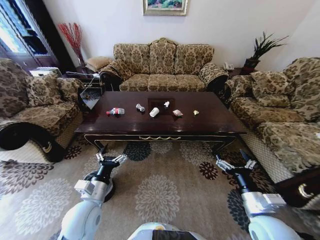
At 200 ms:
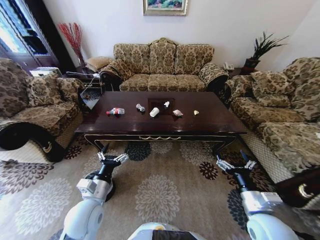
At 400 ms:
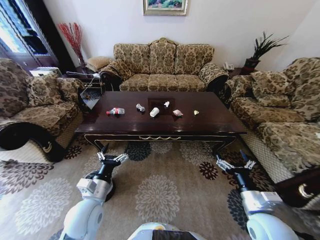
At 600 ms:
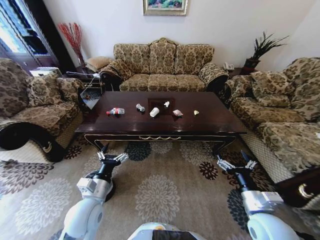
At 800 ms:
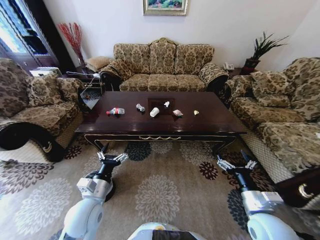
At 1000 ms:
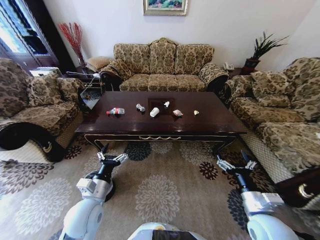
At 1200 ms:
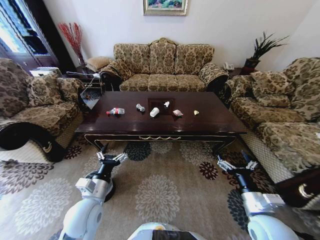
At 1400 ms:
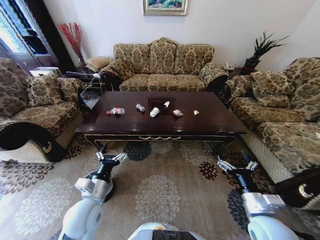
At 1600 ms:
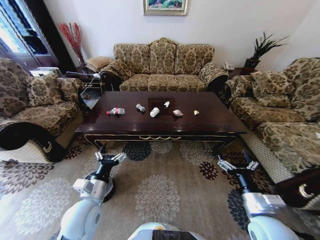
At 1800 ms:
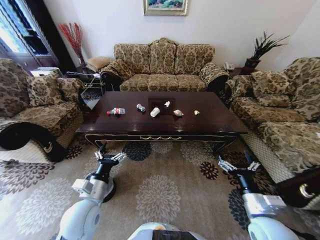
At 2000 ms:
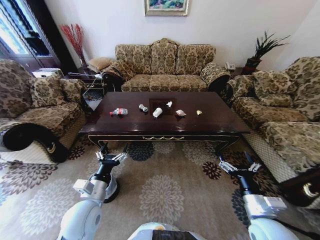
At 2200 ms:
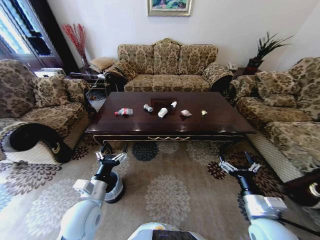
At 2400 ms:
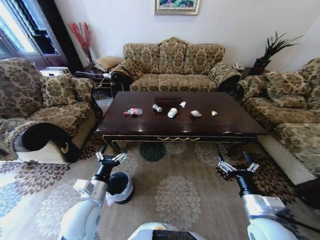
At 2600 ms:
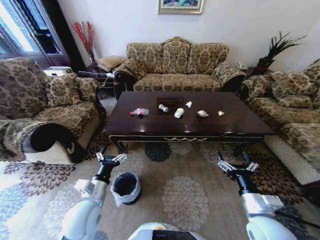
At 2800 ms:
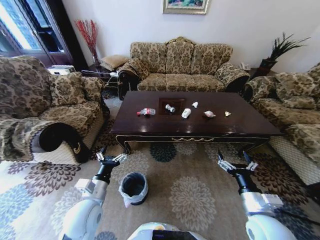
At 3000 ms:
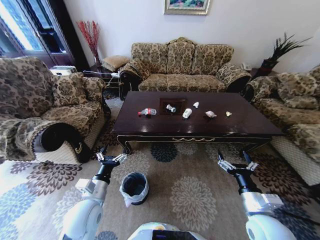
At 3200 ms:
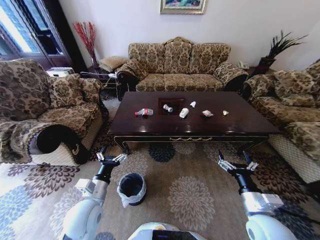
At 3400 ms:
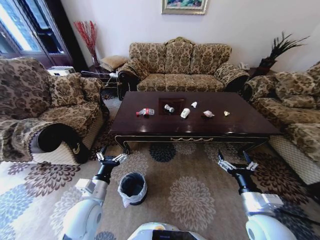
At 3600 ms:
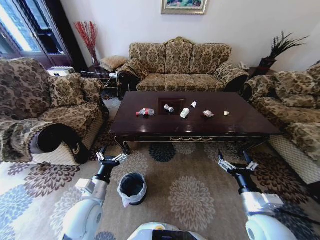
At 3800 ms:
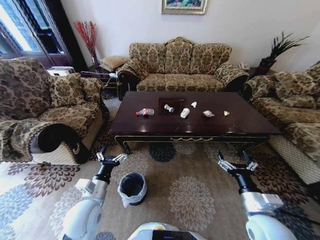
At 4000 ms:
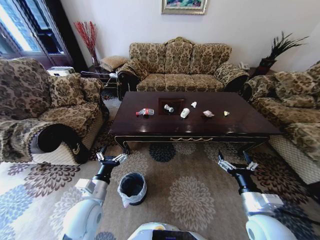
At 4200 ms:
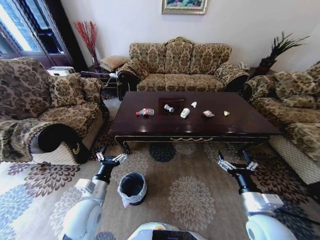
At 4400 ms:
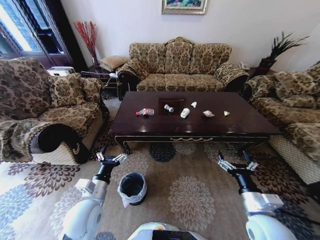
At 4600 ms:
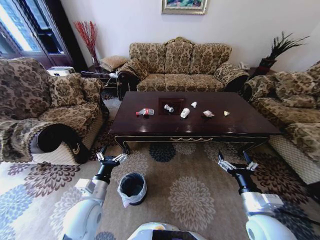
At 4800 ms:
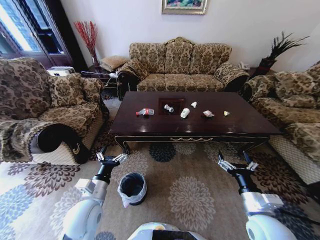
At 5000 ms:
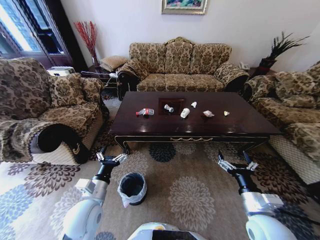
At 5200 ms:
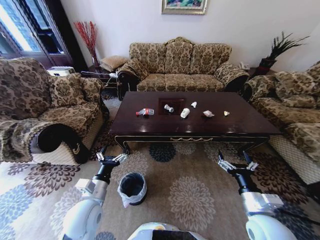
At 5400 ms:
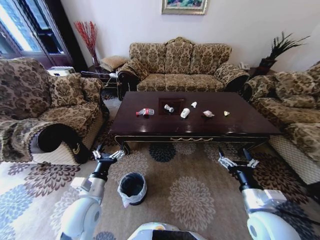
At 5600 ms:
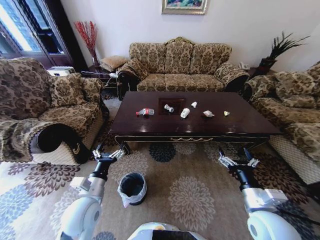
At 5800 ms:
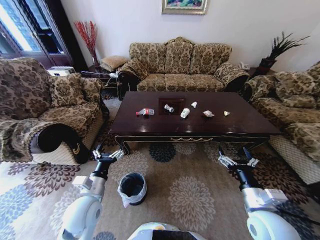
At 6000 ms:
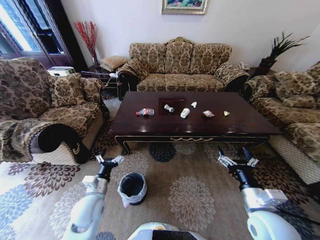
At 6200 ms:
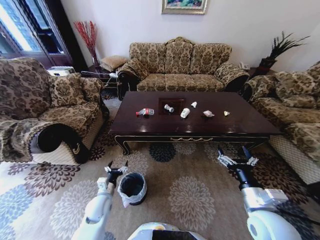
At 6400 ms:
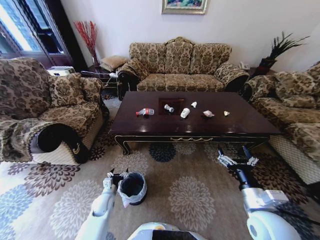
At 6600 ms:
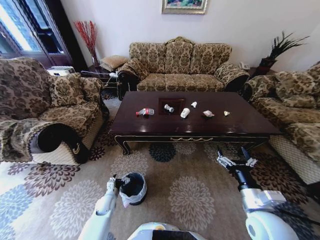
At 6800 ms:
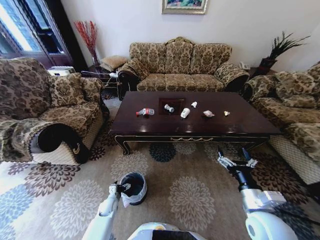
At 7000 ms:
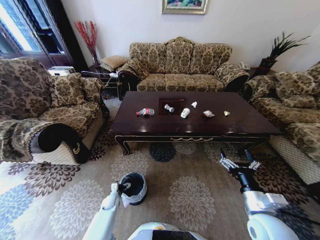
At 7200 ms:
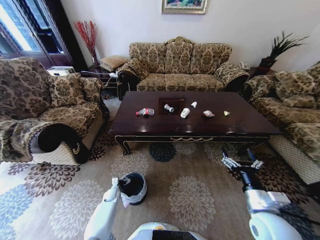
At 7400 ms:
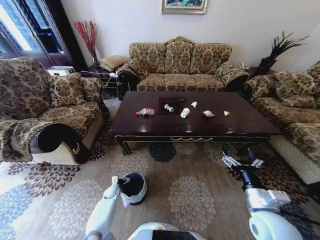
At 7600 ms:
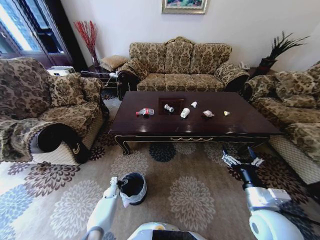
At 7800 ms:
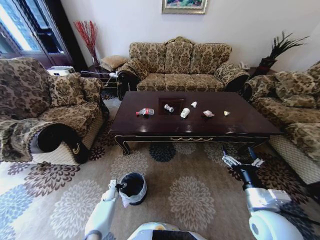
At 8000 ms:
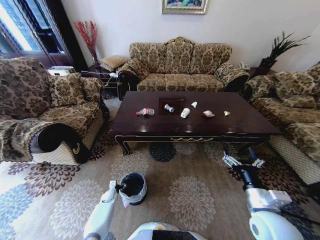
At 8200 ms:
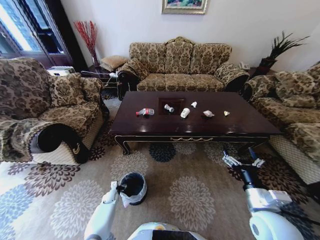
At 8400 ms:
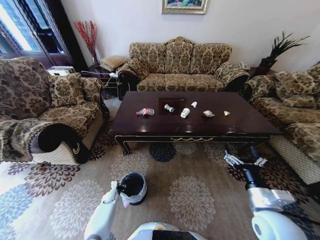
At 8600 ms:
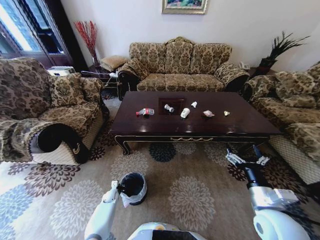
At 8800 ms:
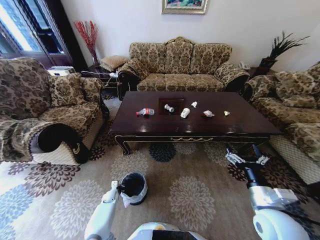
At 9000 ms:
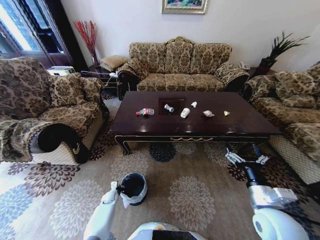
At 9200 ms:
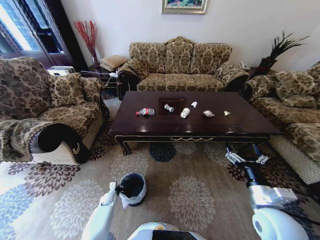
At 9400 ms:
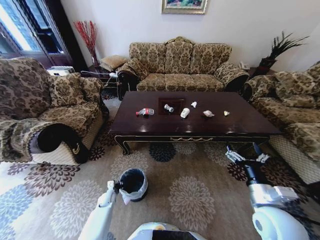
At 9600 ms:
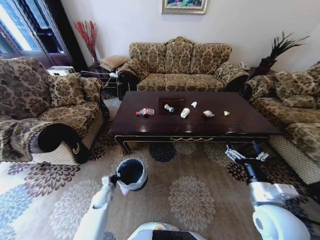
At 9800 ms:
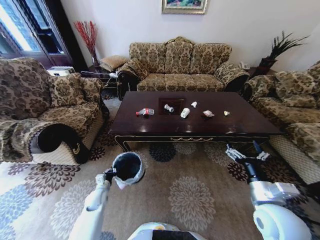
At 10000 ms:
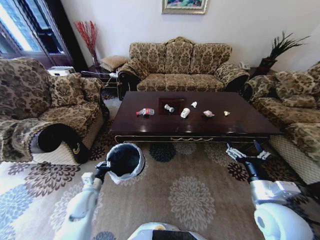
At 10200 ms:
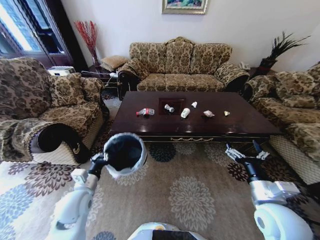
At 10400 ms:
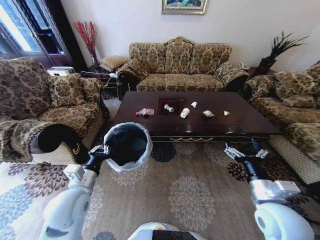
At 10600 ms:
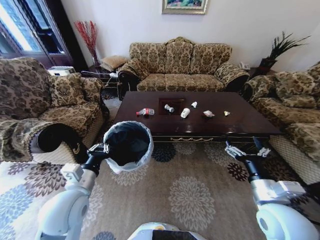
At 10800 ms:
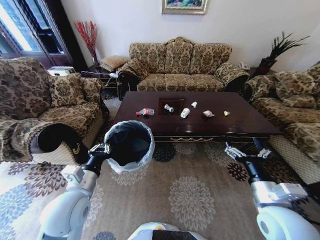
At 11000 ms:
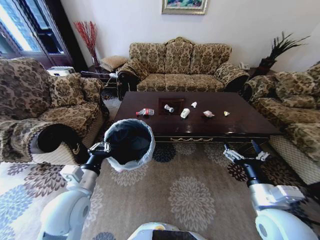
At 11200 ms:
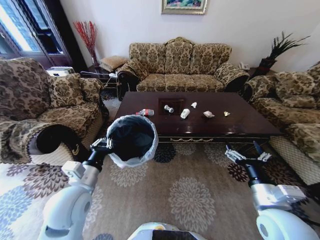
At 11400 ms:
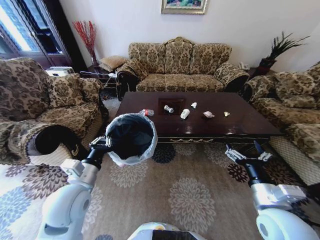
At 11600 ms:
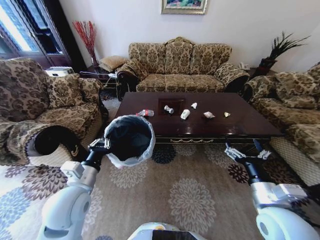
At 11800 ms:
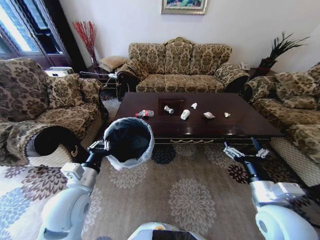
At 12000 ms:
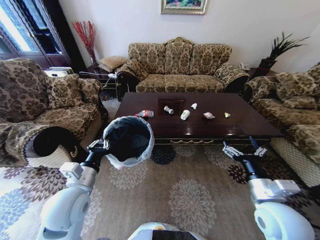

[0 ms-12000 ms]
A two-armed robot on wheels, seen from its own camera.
Task of the whole recording: Move to the front of the table and place the trash on the table into the trash bin.
3000 ms to 4400 ms: Both grippers stay about where they are.
4400 ms to 6000 ms: The left gripper travels downward by about 5 cm.
6000 ms to 7600 ms: The left gripper goes some 30 cm downward and forward.
7600 ms to 9000 ms: The left gripper closes its fingers.
9000 ms to 10400 ms: The left gripper is displaced upward by about 40 cm.
10400 ms to 12000 ms: The grippers make only small movements.

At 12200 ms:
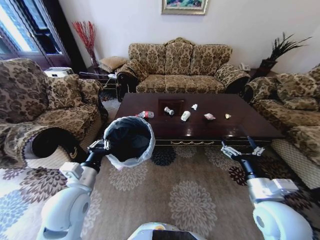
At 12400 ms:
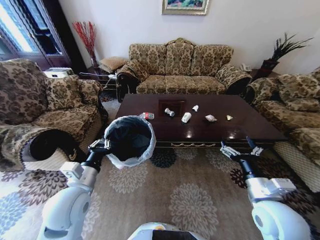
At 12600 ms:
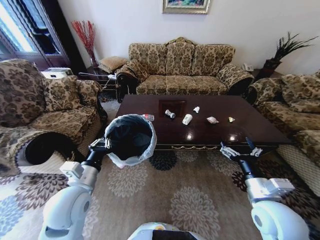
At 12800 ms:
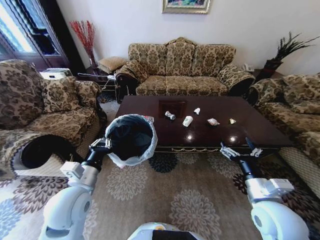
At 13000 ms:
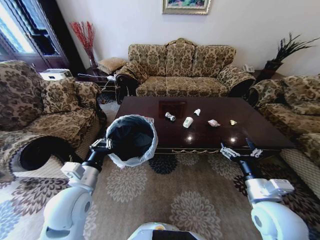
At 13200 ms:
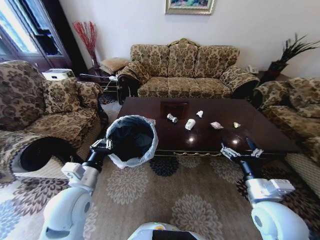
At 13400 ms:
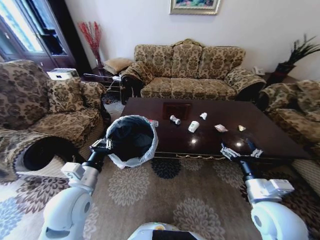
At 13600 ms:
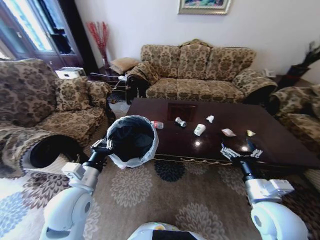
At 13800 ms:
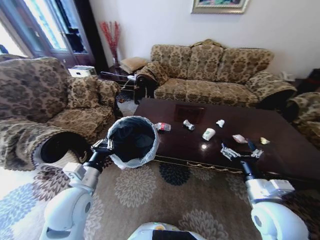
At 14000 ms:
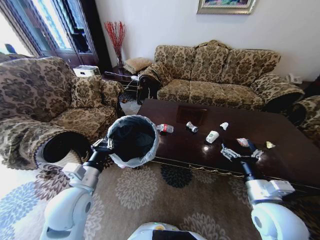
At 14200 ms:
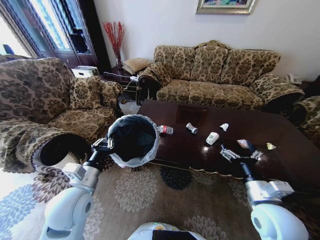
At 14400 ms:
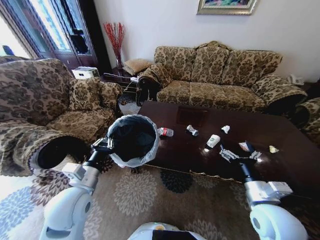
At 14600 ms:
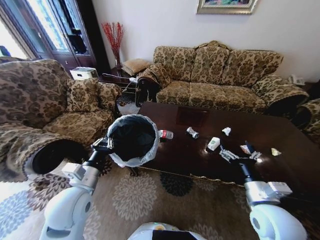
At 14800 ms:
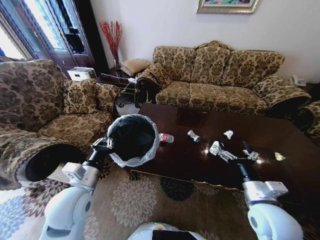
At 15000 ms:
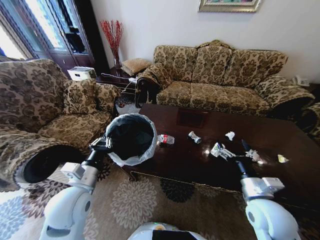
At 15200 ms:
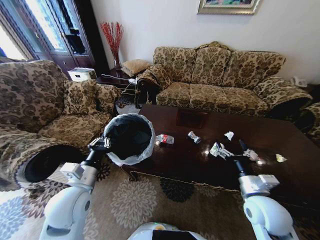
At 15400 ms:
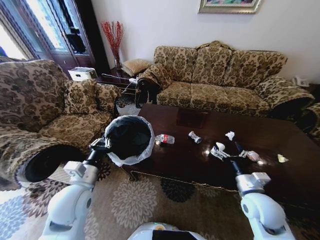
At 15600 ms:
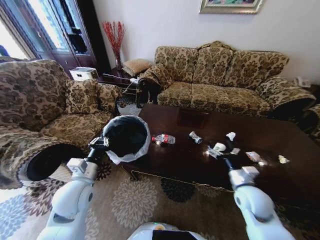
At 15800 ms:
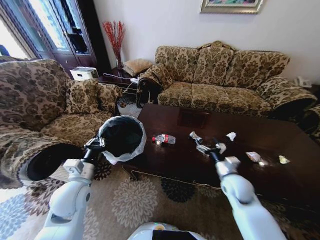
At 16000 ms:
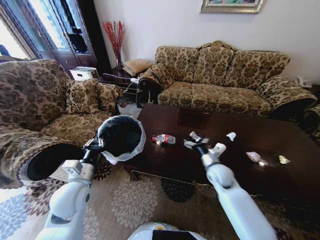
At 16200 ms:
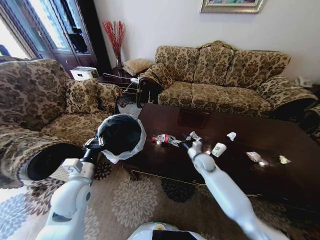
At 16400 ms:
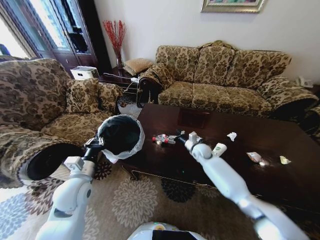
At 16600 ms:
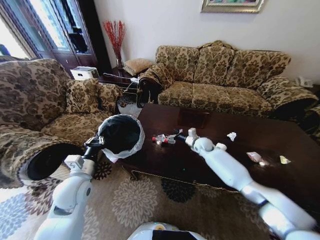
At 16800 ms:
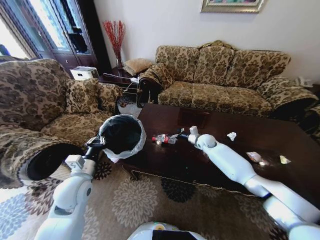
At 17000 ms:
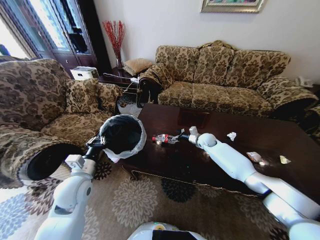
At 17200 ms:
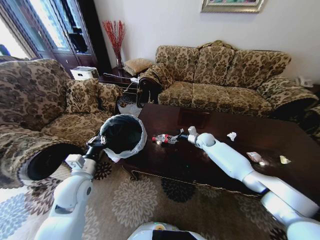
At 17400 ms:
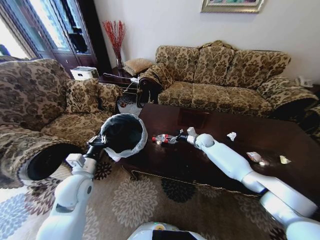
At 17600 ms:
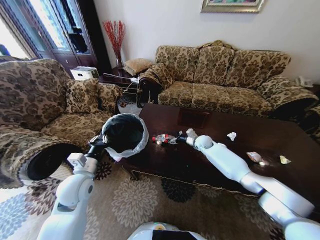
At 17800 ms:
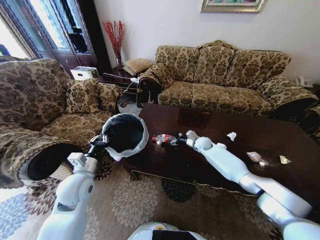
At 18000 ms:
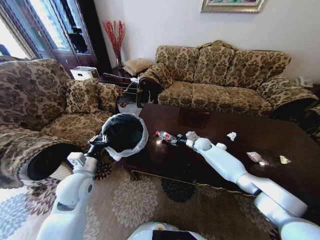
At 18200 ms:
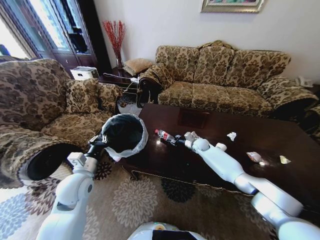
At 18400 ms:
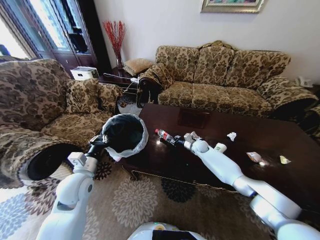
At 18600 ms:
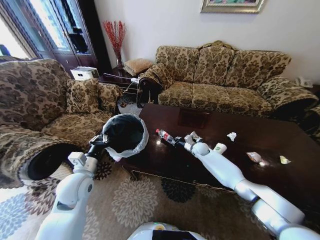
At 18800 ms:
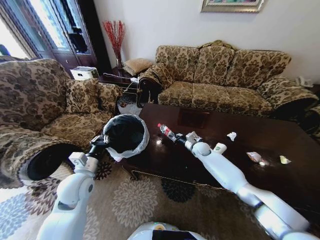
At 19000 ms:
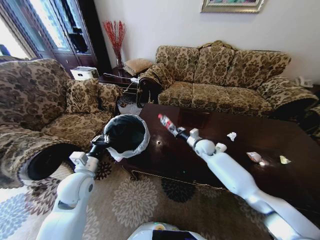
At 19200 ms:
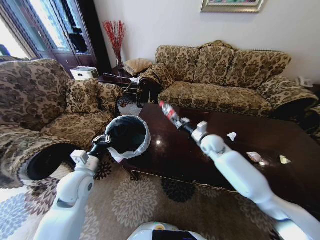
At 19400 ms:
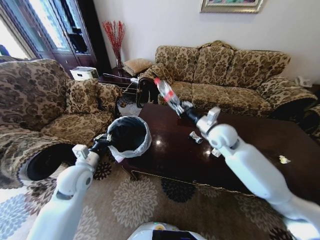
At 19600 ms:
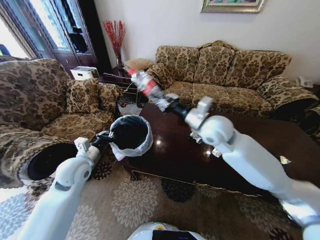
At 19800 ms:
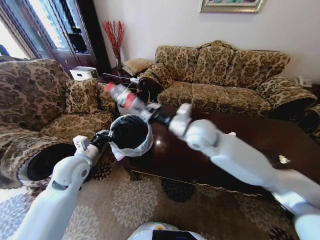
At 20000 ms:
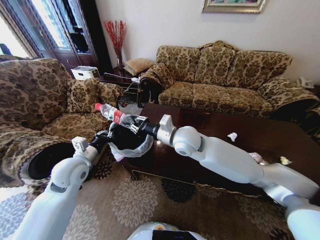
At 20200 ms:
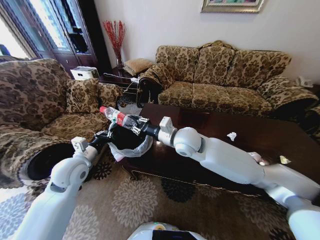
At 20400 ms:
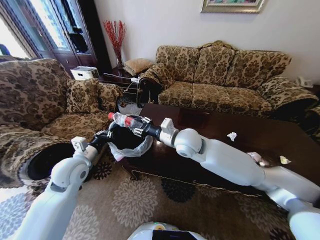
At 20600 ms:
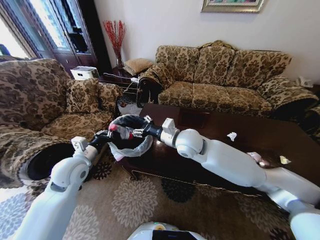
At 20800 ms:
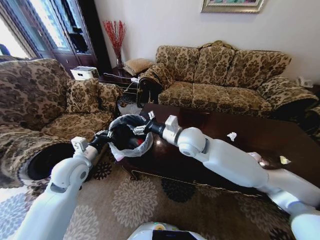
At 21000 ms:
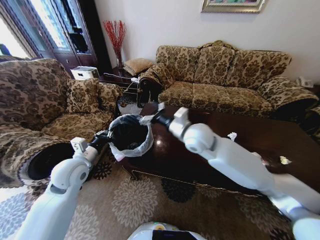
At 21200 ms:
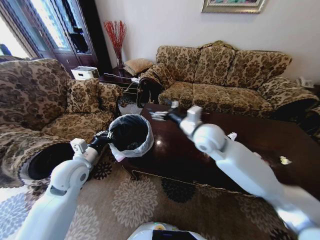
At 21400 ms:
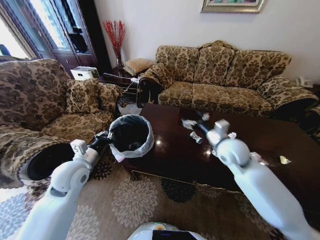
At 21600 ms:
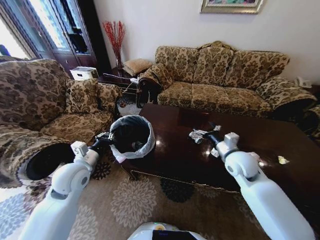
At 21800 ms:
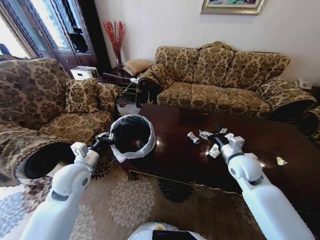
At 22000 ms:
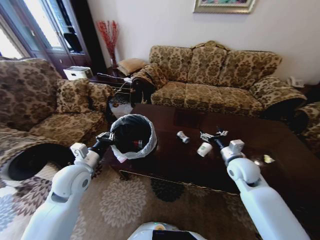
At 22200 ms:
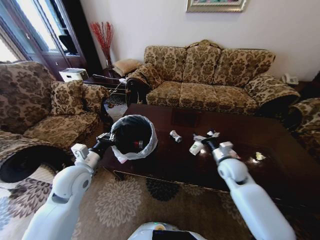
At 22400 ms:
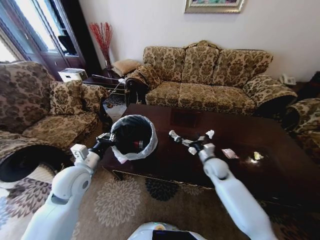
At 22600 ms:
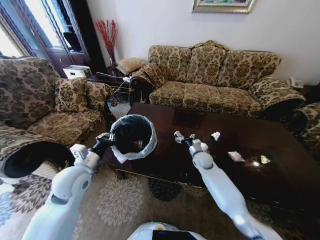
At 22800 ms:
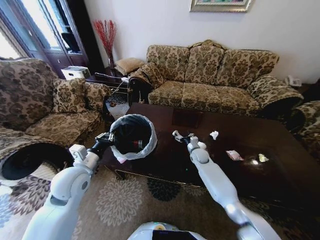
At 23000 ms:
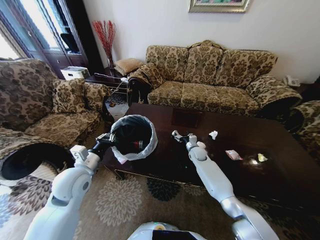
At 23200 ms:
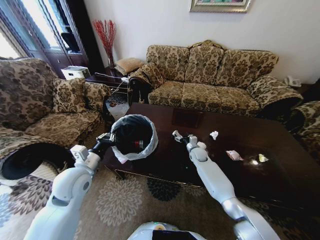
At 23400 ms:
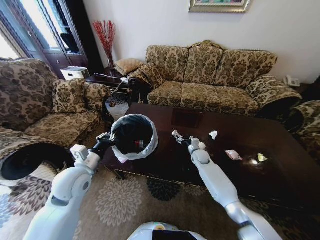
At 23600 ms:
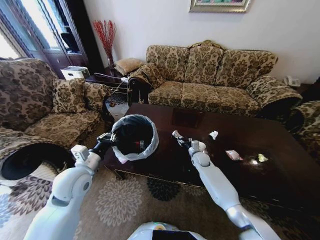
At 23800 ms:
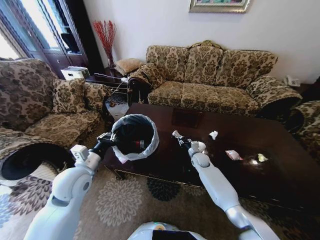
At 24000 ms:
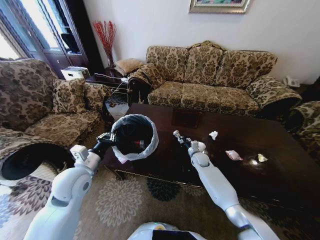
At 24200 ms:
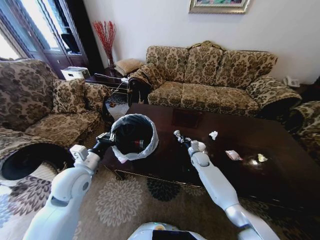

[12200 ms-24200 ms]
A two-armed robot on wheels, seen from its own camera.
Task of the whole recording: Move to the front of the table and place the trash on the table into the trash bin.
15200 ms to 16600 ms: The right gripper moves forward, approximately 30 cm. Meanwhile the left gripper shifts by about 5 cm.
16600 ms to 18200 ms: The right gripper changes place by some 5 cm, and closes its fingers.
18200 ms to 19800 ms: The left gripper changes place by about 5 cm, while the right gripper goes about 35 cm upward, backward and to the left.
19800 ms to 21200 ms: The right gripper travels to the right by some 5 cm, and opens up.
21200 ms to 22600 ms: The right gripper shifts roughly 25 cm downward.
22600 ms to 24200 ms: The right gripper shifts by some 5 cm, and closes its fingers.
